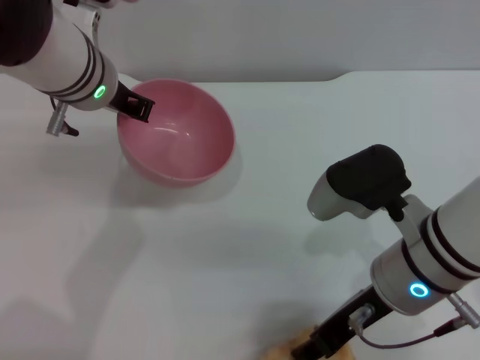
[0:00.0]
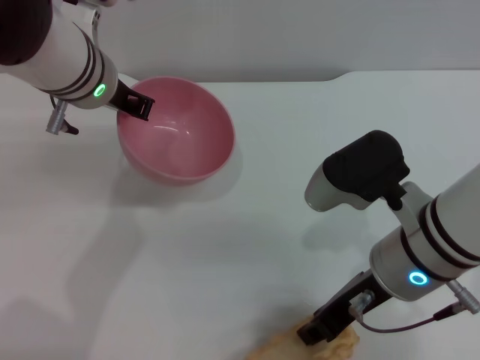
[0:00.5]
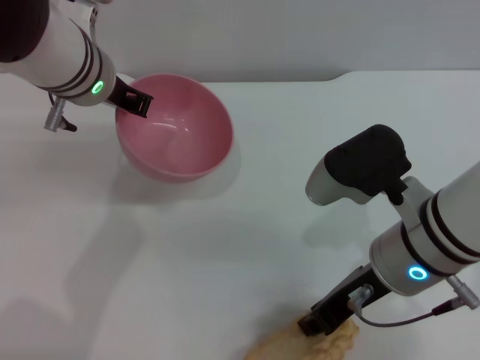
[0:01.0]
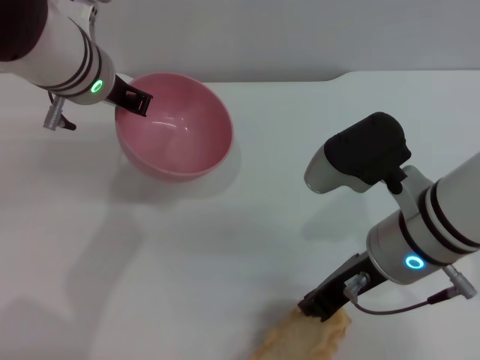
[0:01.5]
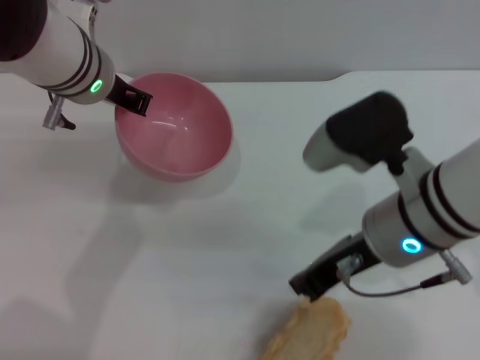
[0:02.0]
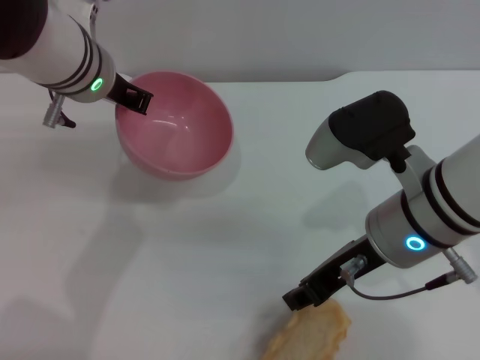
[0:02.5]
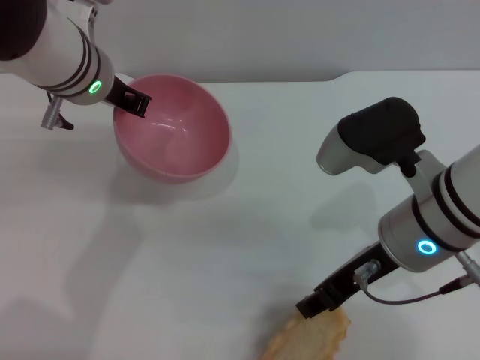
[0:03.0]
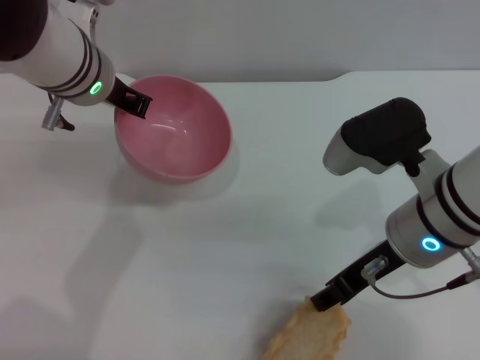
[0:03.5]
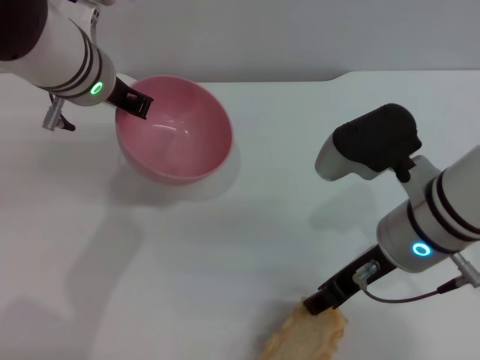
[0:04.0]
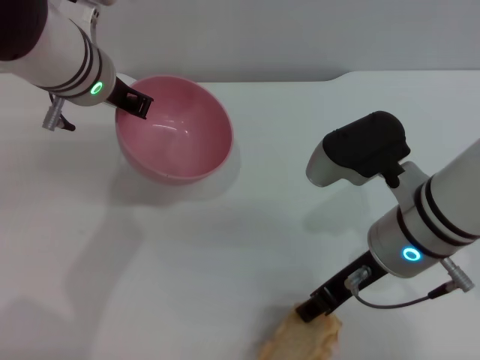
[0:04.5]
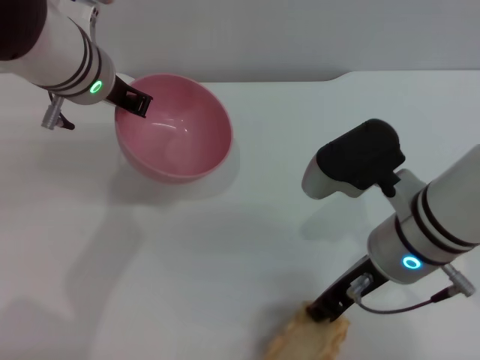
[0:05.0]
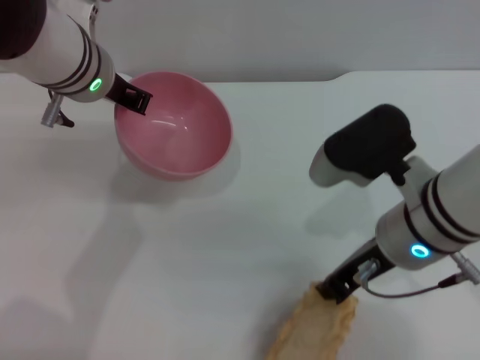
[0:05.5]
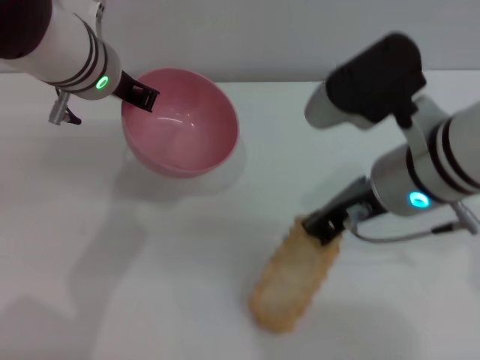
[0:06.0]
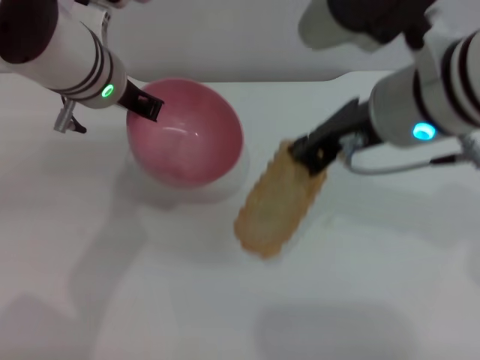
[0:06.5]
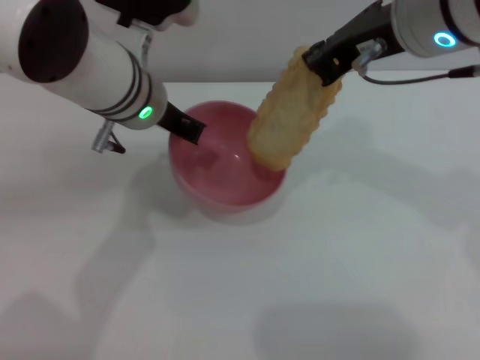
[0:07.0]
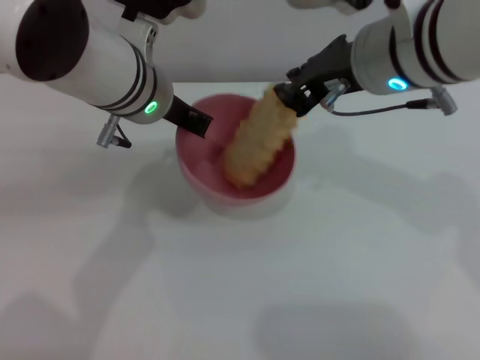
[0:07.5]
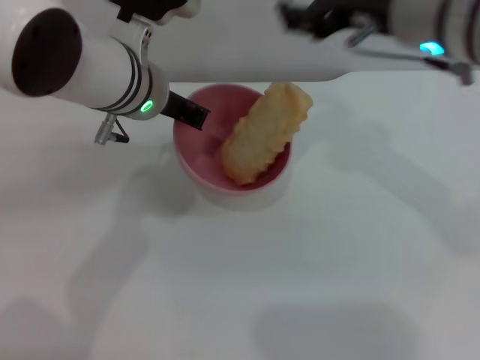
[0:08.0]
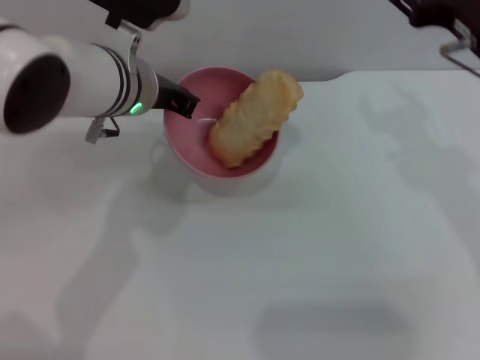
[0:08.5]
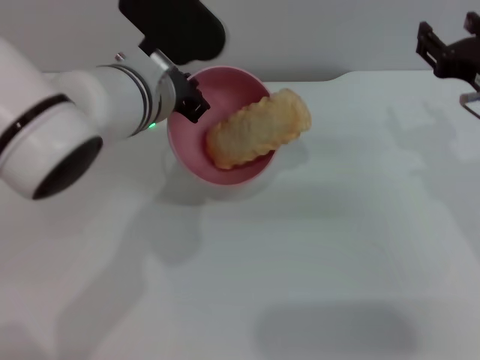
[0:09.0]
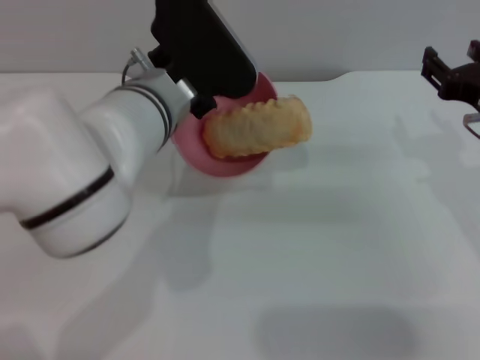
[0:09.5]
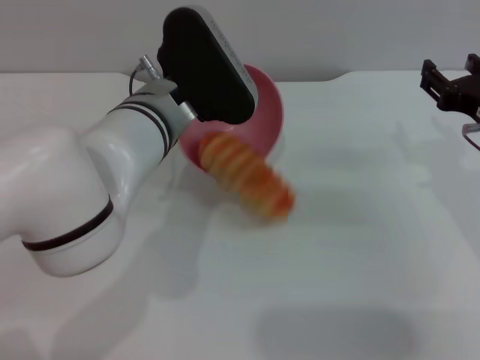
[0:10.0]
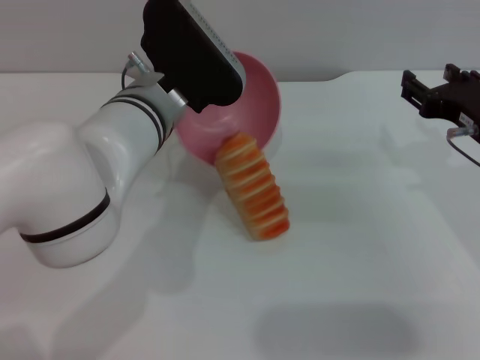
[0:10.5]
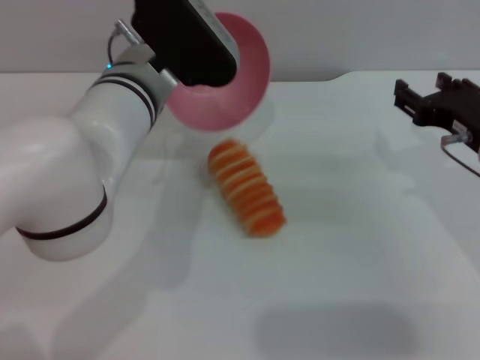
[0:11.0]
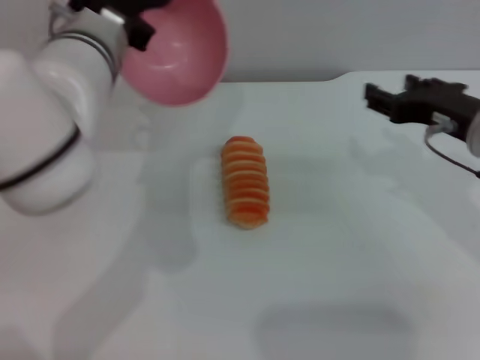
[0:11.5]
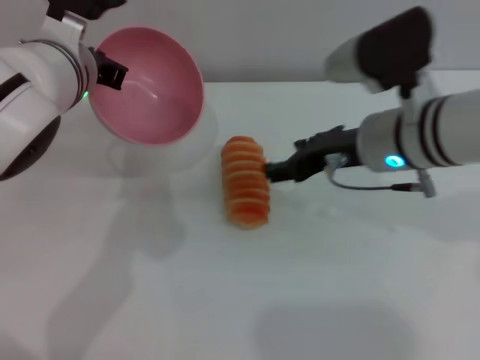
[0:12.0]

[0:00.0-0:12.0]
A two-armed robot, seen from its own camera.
Task of the whole recording: put the bread into the pink bowl and pour it out repeatedly.
Step, 0:00.0 to 0:06.0: Pick up the bread with the right gripper.
Step, 0:06.5 to 0:07.5: Place the bread into the bowl.
Step, 0:08.0 to 0:11.0: Pour the bread out of the bowl.
0:00.0 to 0:02.0: The right gripper closes its fingers.
0:02.0 to 0:04.0: The right gripper opens its fingers.
0:04.0 to 0:06.0: The right gripper shifts about 5 cm upward, and closes its fingers.
0:06.0 to 0:08.0: The right gripper heads upward and forward, covering some 10 cm, and opens its fingers.
0:08.0 to 0:10.0: The right gripper shifts roughly 15 cm downward and to the right; the left gripper shifts by about 5 cm.
0:10.0 to 0:12.0: The right gripper goes about 10 cm to the left, while the left gripper travels to the left by approximately 5 cm.

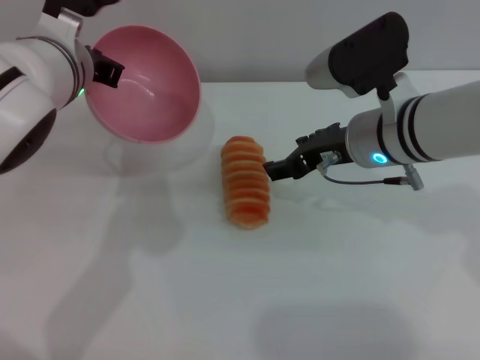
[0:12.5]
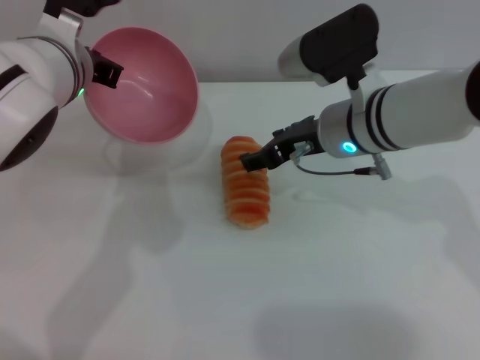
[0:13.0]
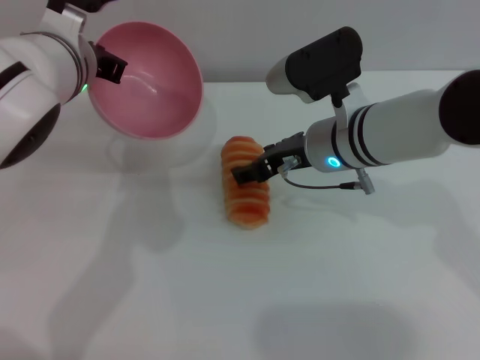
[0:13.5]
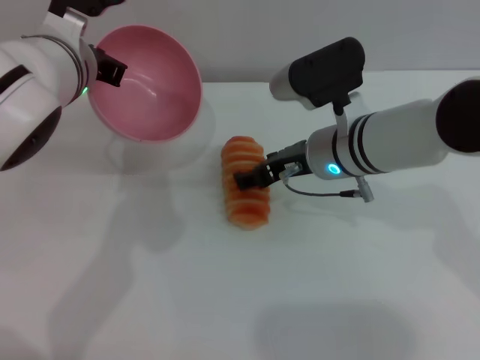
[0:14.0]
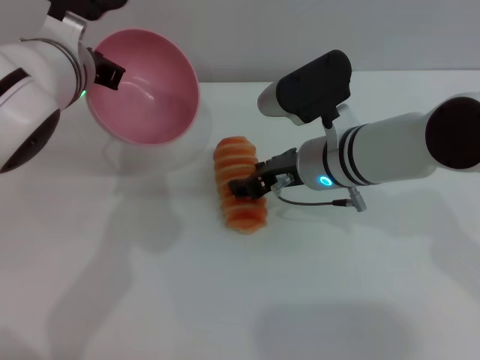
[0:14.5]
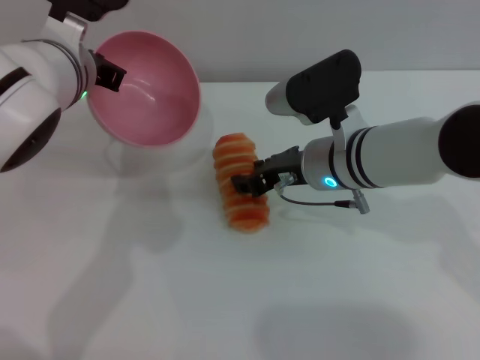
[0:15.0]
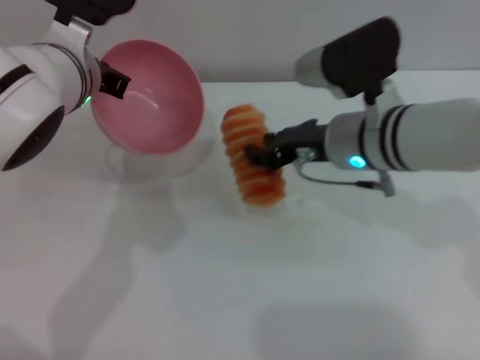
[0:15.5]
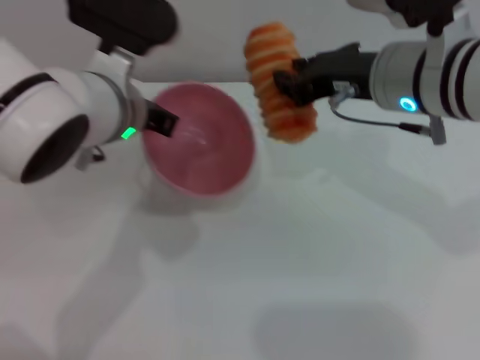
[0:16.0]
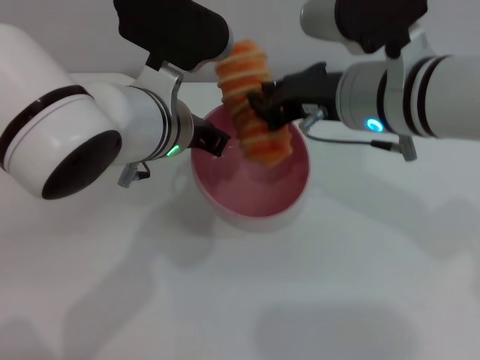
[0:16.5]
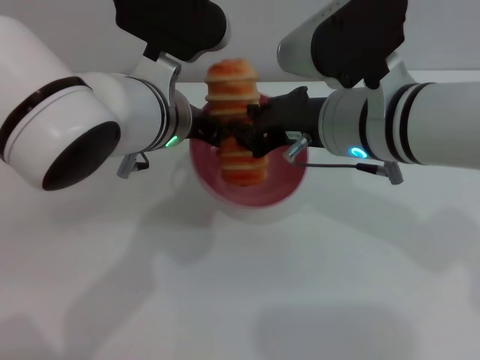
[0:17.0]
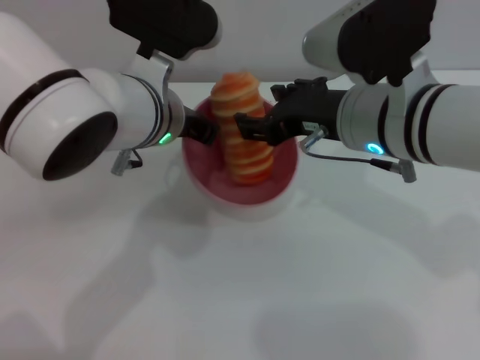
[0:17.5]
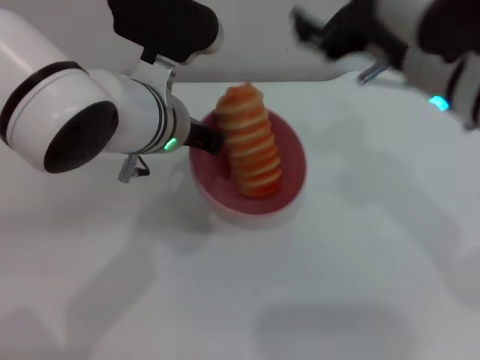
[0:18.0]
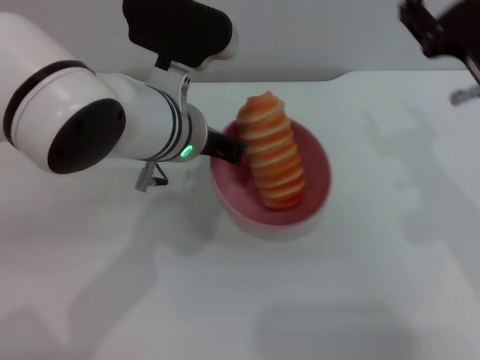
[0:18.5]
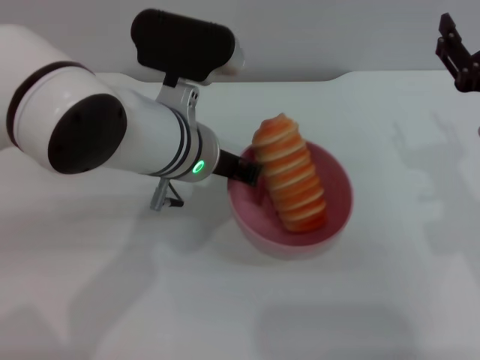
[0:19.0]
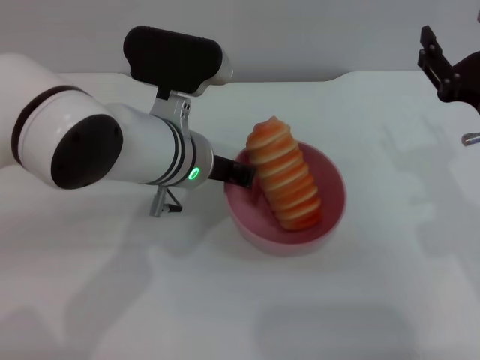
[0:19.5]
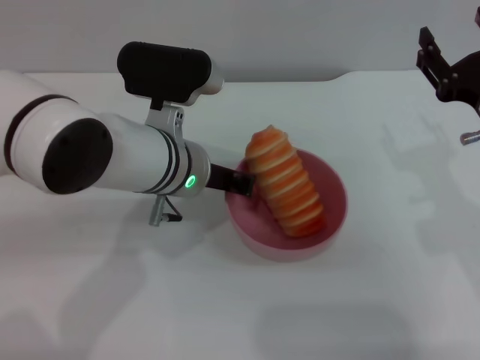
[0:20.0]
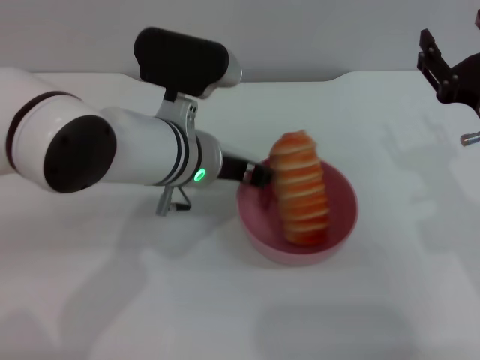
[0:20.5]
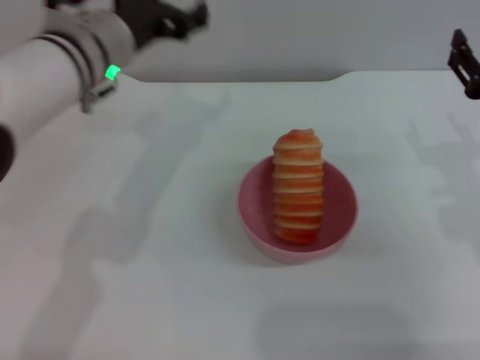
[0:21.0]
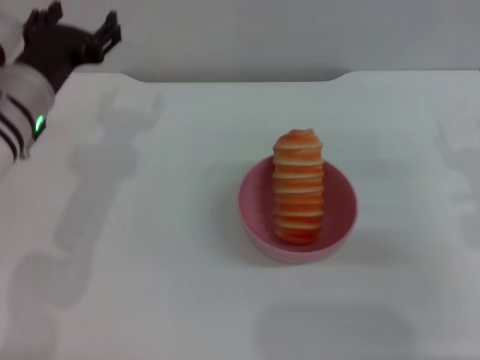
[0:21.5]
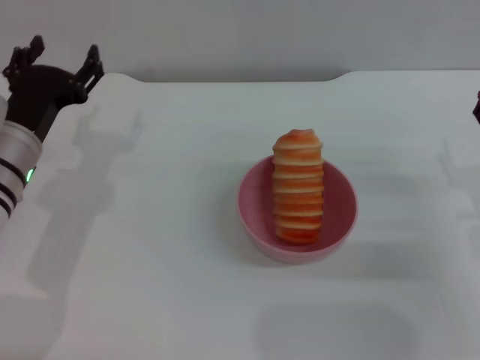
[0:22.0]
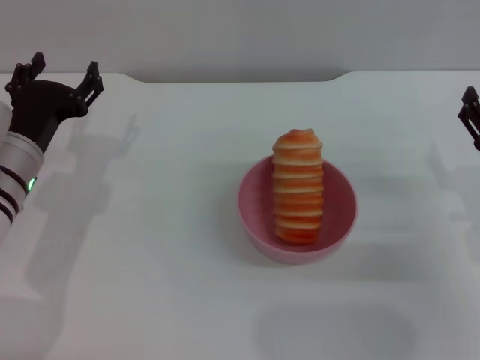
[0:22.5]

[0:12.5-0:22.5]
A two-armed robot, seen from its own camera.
Task of the whole recording: put the bread into the pink bowl and pour it out repeatedly.
Step, 0:12.5 to 0:15.5: Pick up the bread with the right gripper.
Step, 0:16.0 to 0:17.5: Place the bread into the bowl.
Step, 0:18.0 to 0:20.5: Place the bowl on the table.
0:12.5 to 0:14.5: The right gripper changes place by approximately 5 cm.
0:14.5 to 0:16.5: The left gripper travels to the right by roughly 5 cm. Meanwhile the right gripper heads upward, covering some 10 cm, and closes.
0:16.5 to 0:18.5: The right gripper is displaced to the right by roughly 10 cm, and opens its fingers.
0:20.5 to 0:22.5: The left gripper heads to the left, covering some 15 cm, and opens up, while the right gripper moves downward, some 5 cm.
